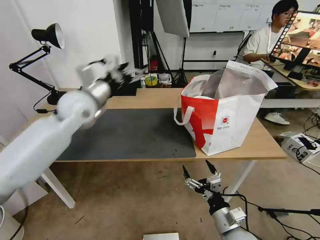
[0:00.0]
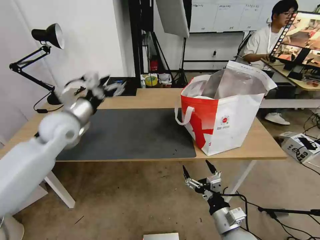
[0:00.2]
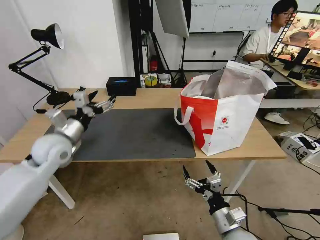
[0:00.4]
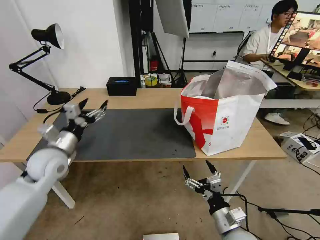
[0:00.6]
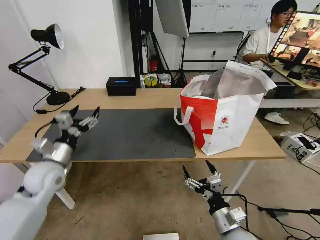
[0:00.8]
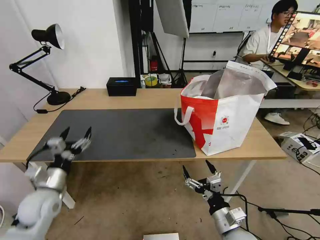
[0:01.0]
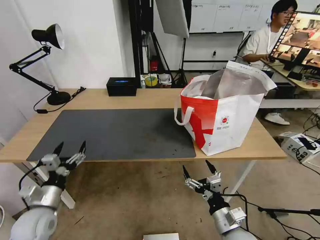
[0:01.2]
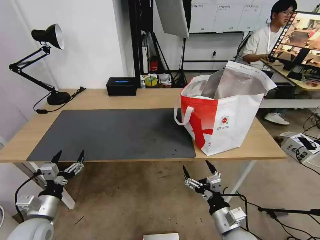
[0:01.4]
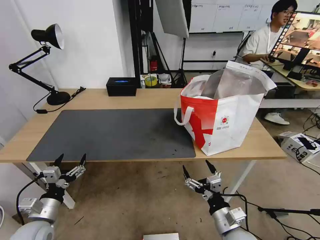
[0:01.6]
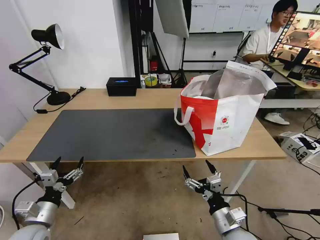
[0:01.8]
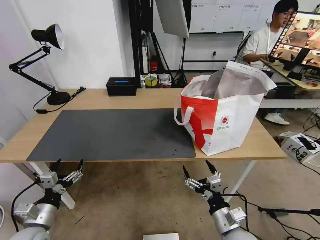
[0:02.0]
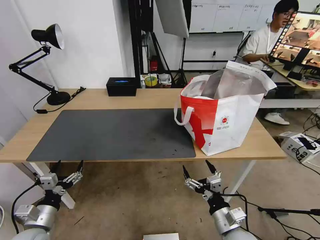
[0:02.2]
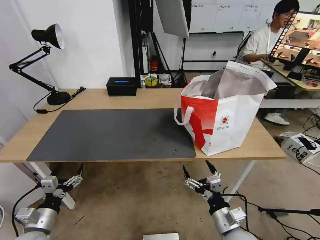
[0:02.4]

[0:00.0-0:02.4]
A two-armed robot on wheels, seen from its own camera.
Task of the whole recording: Pick up the trash from the table and place it into the takeout bag.
0:00.0 to 0:01.2: The left gripper travels downward, backward and to the left by some 40 cm.
0:01.2 to 0:02.4: The left gripper shifts by approximately 5 cm.

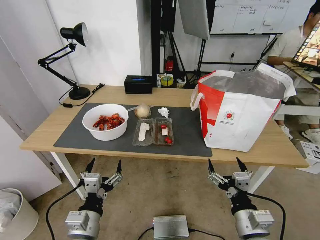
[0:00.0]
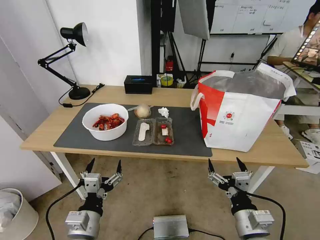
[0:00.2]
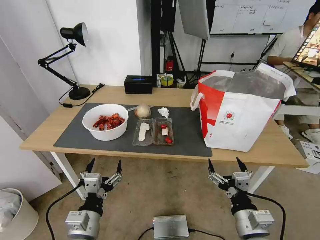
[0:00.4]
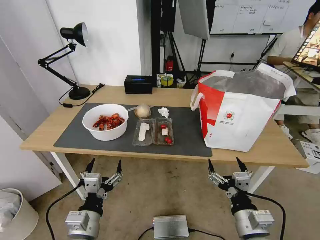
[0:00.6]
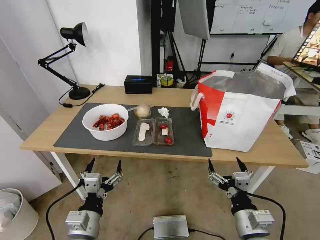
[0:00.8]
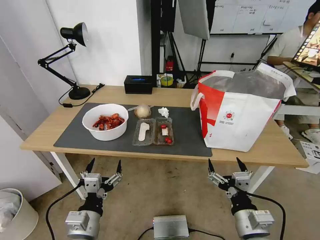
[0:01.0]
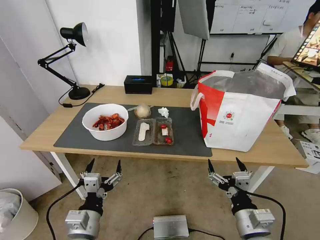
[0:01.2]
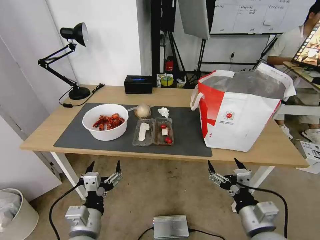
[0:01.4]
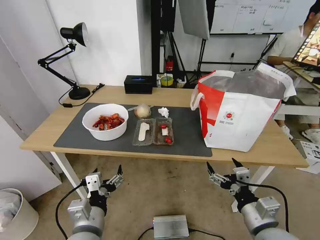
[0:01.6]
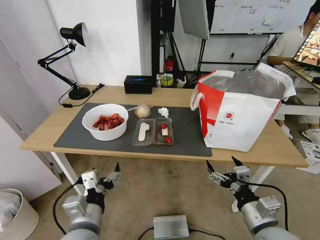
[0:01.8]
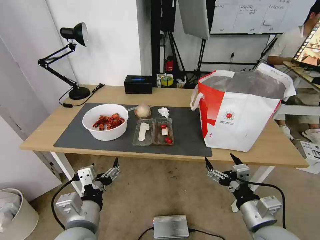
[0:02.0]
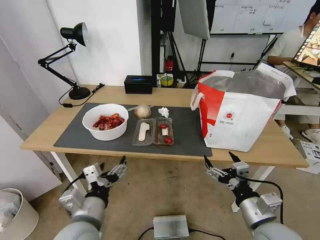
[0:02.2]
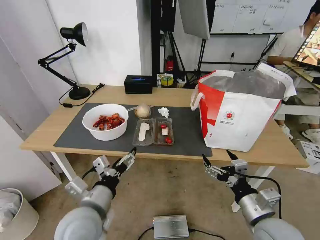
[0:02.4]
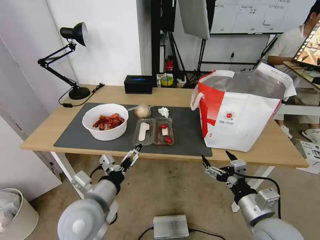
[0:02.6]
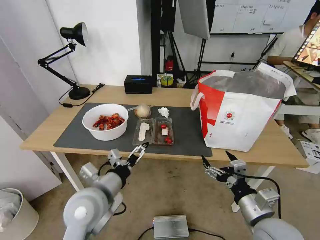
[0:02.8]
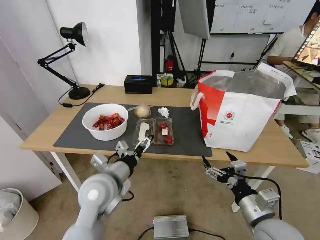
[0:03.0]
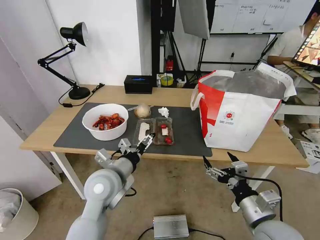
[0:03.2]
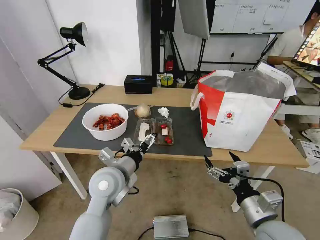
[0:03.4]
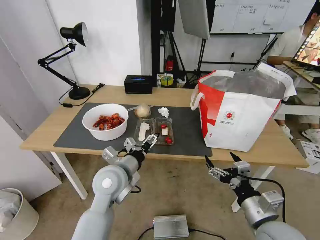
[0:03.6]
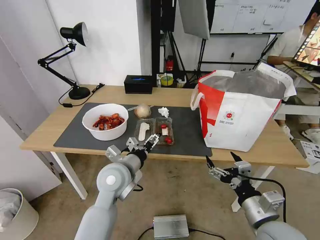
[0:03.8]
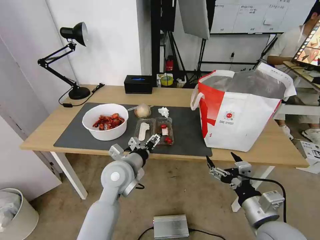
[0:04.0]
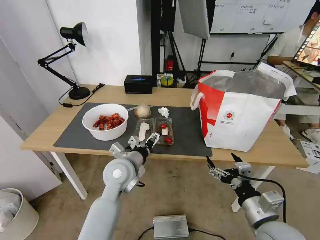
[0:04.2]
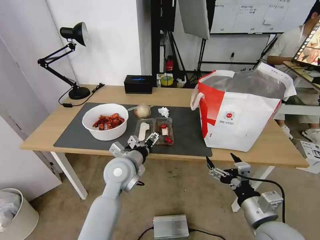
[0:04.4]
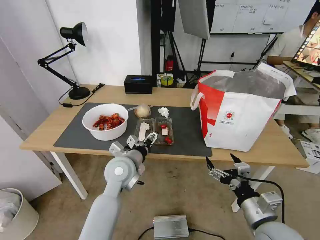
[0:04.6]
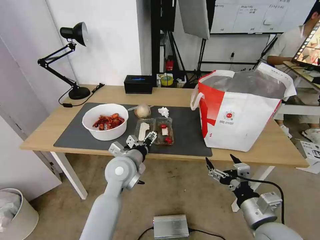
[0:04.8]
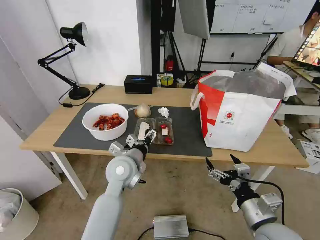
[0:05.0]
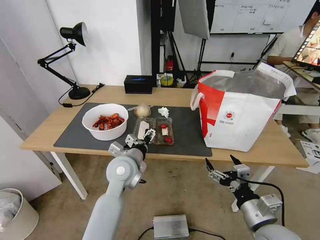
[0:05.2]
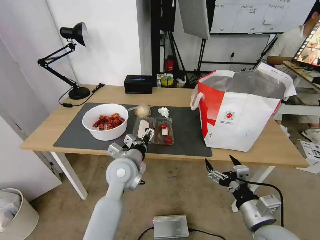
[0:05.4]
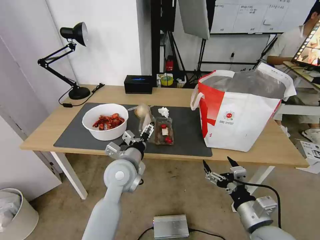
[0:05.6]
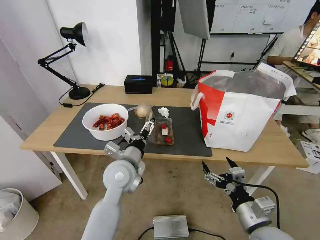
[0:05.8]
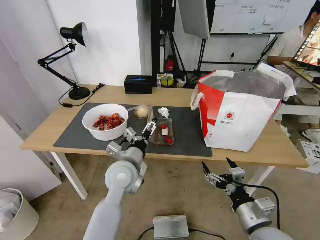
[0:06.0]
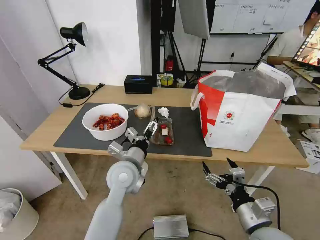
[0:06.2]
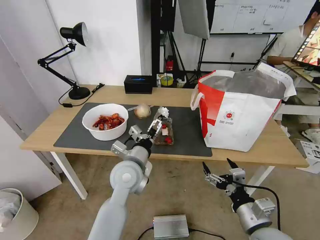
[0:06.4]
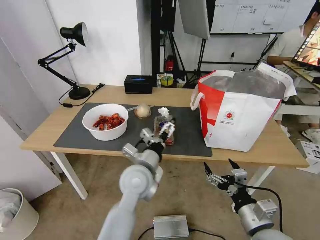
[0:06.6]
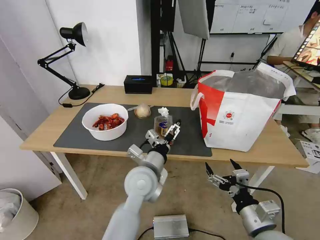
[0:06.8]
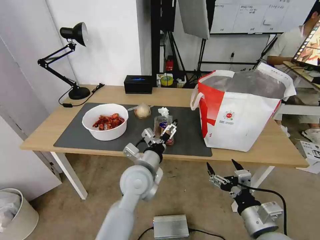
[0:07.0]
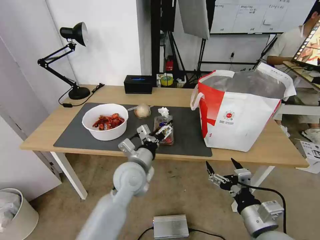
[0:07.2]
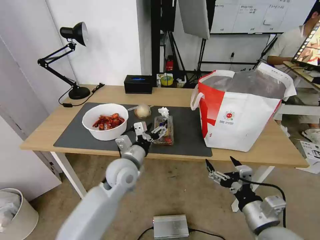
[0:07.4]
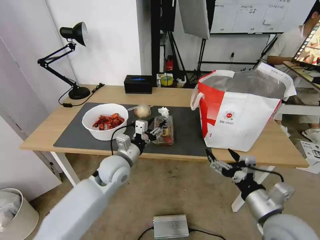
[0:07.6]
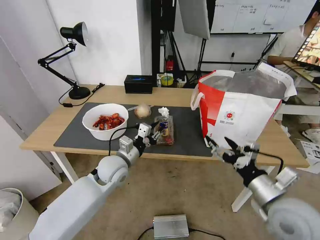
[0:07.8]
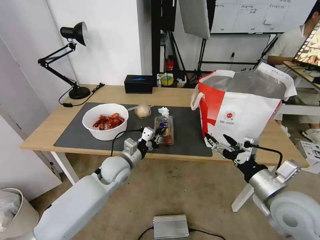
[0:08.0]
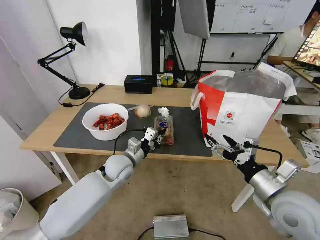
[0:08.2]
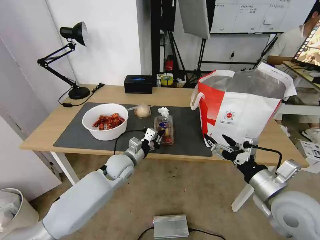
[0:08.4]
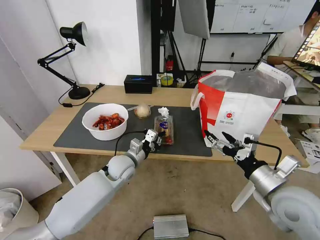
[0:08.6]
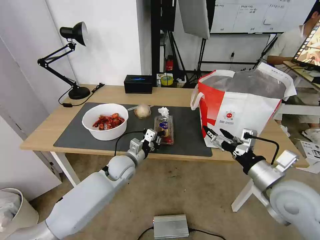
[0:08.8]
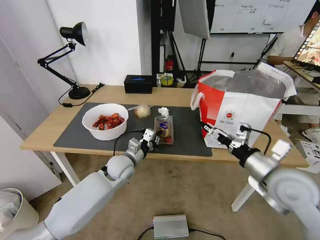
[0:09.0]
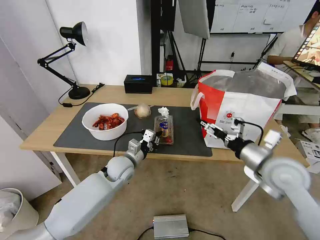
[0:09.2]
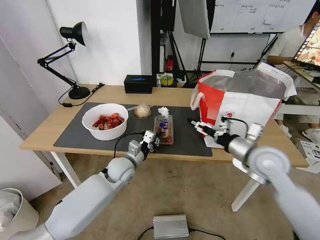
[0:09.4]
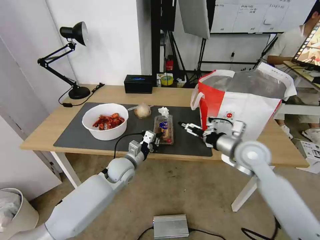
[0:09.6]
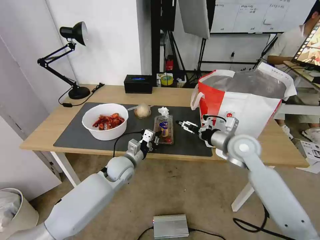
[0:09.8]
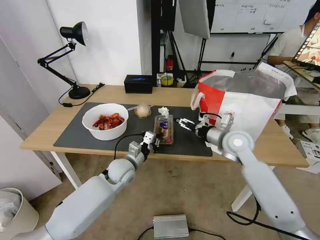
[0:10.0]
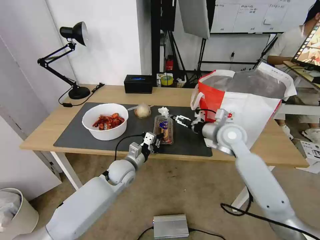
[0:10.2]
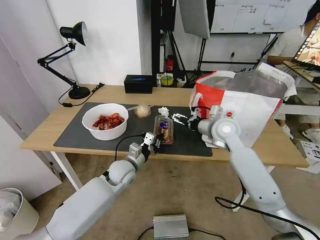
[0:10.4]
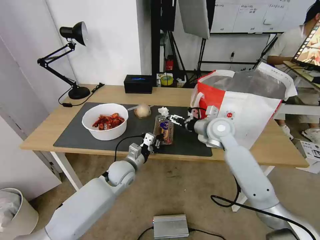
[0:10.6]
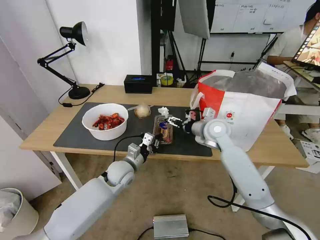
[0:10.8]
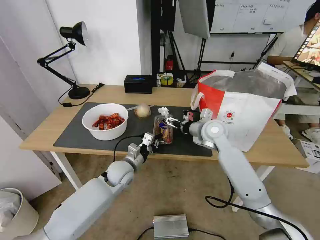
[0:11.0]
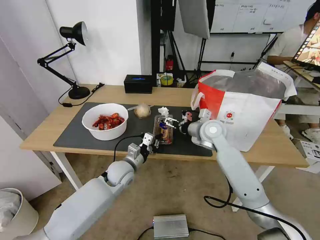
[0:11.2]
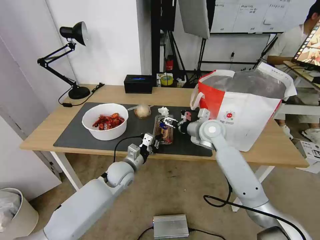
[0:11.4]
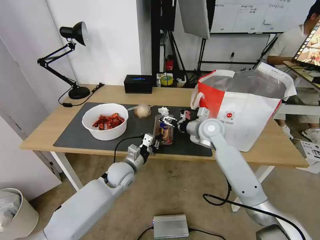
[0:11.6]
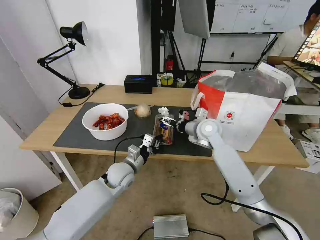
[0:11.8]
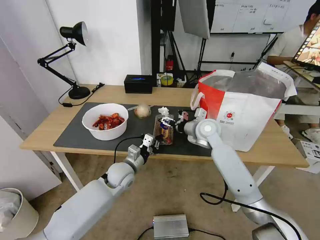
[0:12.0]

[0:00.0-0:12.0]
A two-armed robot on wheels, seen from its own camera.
Task of the whole recording: Pick up the trash from the table and place it into the takeout bag.
0:01.6 to 0:03.0: The left gripper shifts about 15 cm forward and upward.
0:03.0 to 0:04.4: The left gripper travels forward by roughly 5 cm.
0:04.4 to 0:06.0: The grippers make only small movements.
0:06.0 to 0:07.6: The right gripper moves roughly 5 cm. Meanwhile the left gripper moves approximately 5 cm to the right and comes back, and closes.
0:07.6 to 0:09.0: The right gripper travels forward and upward by approximately 10 cm. Meanwhile the left gripper heads downward, covering some 5 cm, and closes.
0:09.0 to 0:10.4: The right gripper heads forward and to the left, covering about 20 cm.
0:10.4 to 0:12.0: The right gripper changes place by about 5 cm.

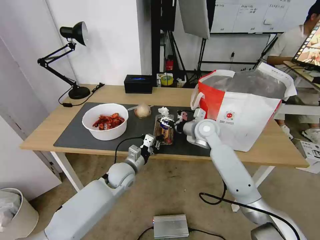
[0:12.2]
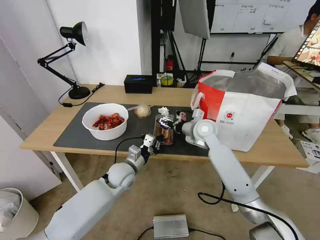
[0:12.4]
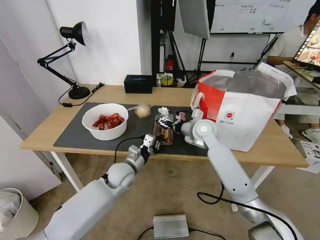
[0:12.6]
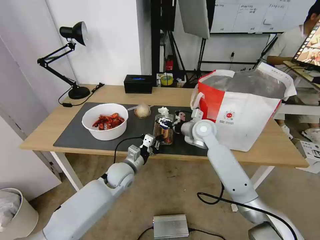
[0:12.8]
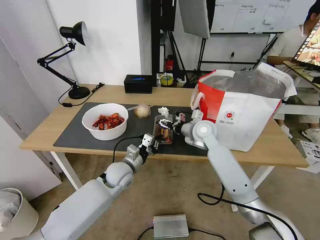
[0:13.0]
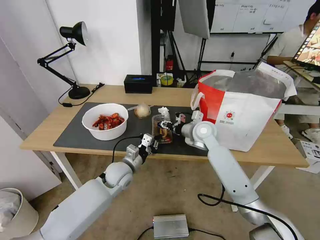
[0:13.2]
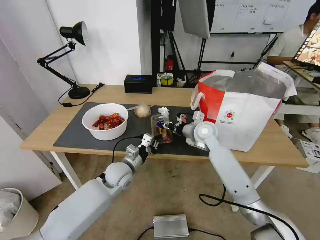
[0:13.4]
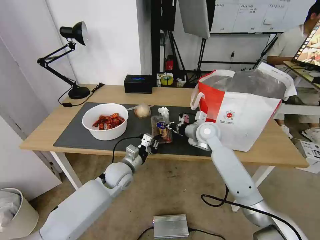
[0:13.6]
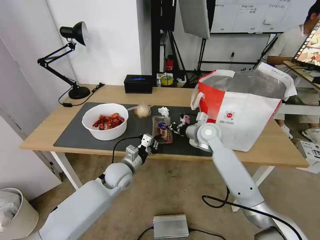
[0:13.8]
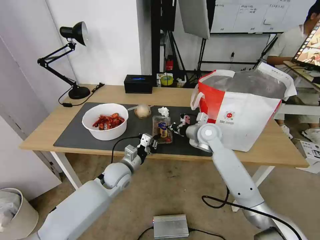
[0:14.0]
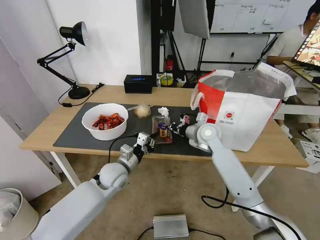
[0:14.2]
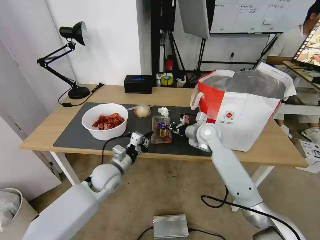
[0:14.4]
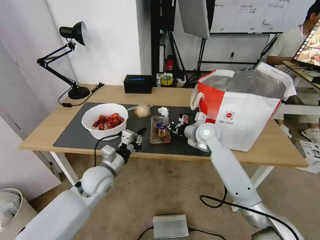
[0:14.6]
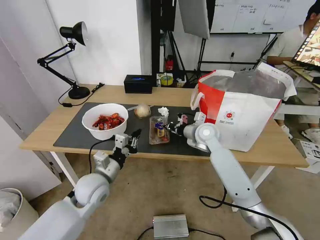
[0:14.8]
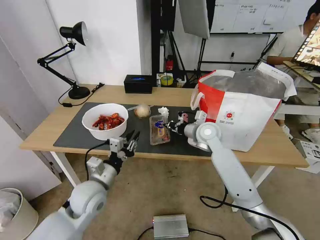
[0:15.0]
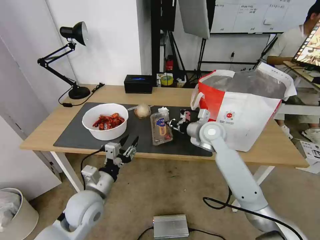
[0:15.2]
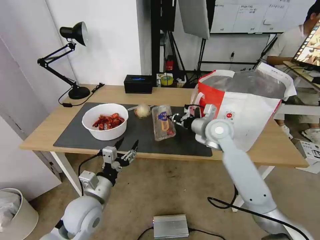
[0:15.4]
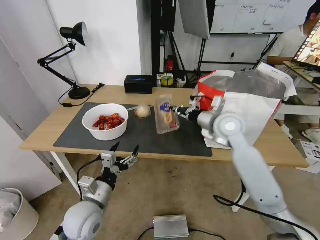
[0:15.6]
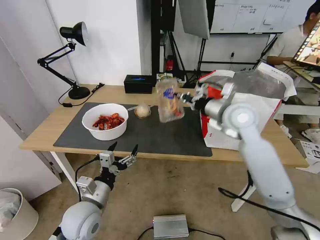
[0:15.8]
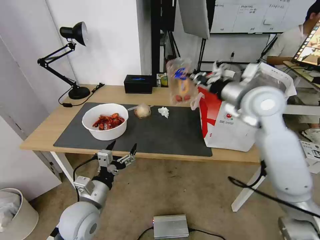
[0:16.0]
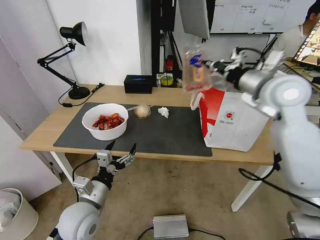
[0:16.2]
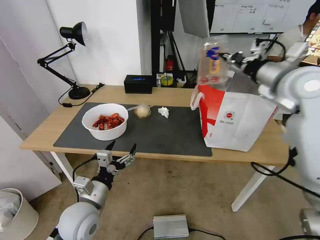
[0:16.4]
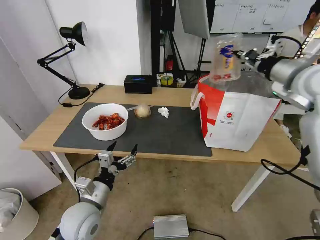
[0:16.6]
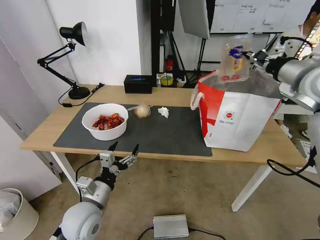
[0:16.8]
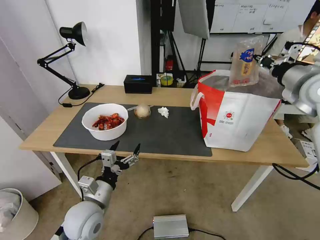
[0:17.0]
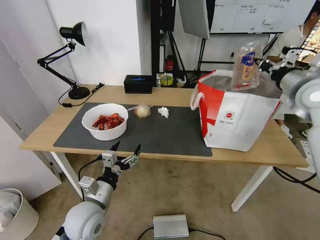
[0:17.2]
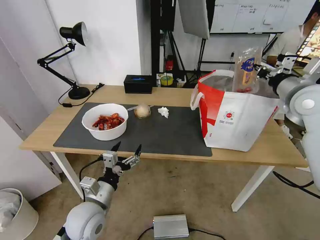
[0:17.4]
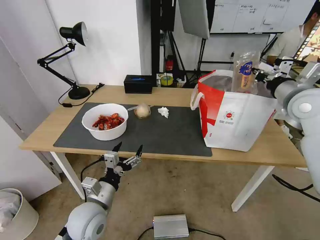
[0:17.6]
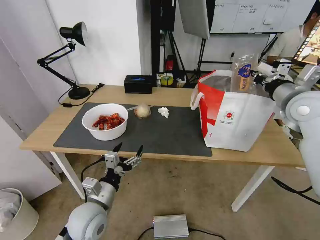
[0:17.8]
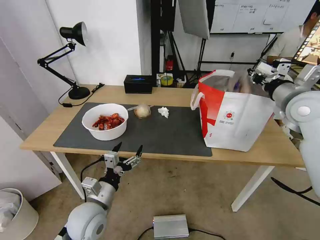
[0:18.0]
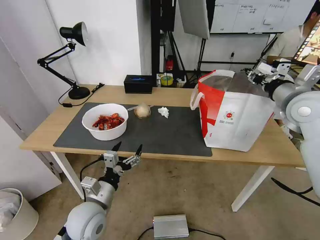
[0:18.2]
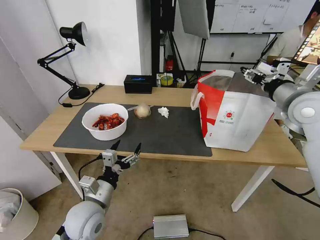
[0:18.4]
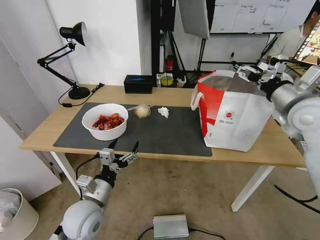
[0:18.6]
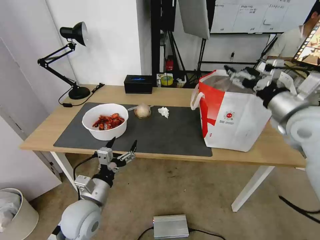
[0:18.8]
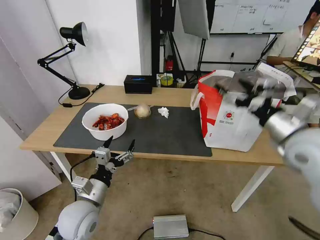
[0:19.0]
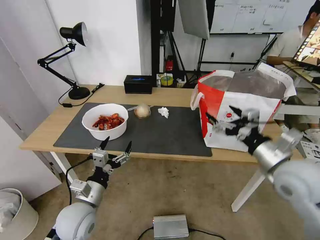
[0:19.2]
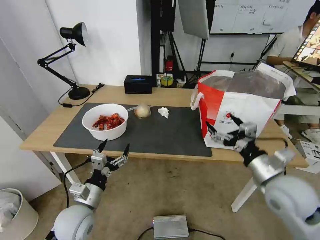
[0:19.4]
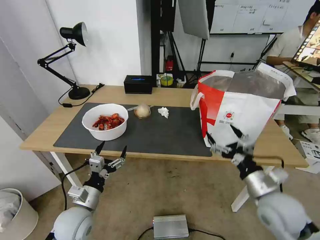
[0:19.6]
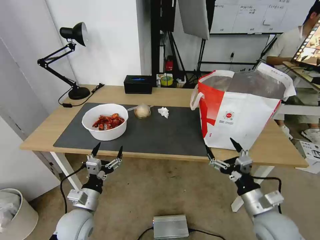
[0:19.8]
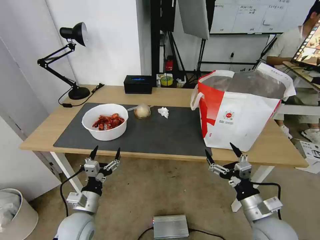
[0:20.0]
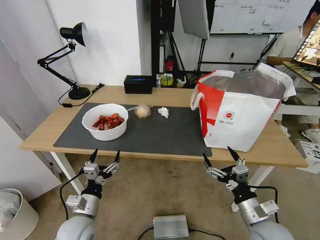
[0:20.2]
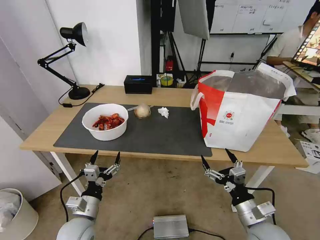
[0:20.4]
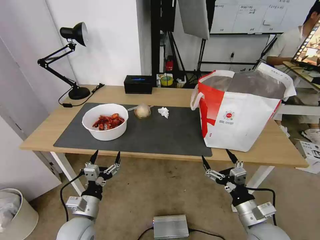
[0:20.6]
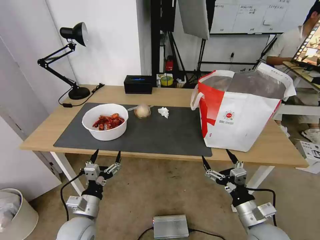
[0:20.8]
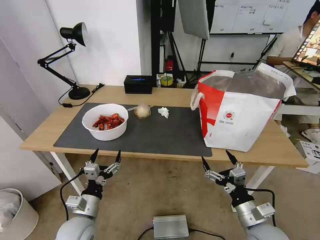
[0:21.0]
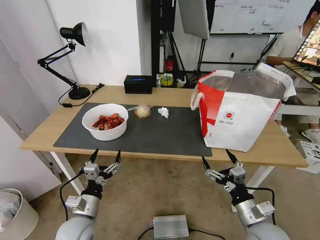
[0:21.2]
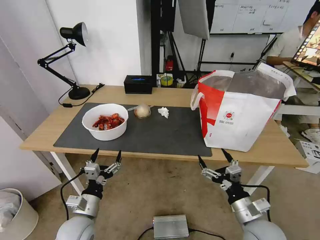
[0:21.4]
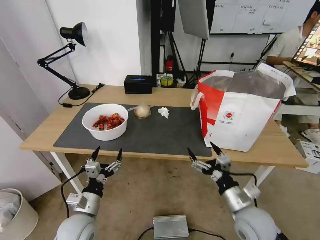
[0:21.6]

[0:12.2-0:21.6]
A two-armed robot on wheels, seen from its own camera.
Task of the whole recording: Pick up the trash from the table and place it into the takeout bag.
0:12.2 to 0:13.8: The right gripper closes up.
0:13.8 to 0:15.4: The left gripper shifts approximately 15 cm backward and to the left, and opens. The right gripper ends up approximately 5 cm from where it was.
0:15.4 to 0:17.0: The right gripper moves to the right and upward, some 25 cm.
0:17.0 to 0:18.4: The right gripper shifts by some 5 cm, and opens its fingers.
0:18.4 to 0:20.0: The left gripper is displaced downward by about 5 cm. The right gripper travels downward and backward by approximately 35 cm.
0:20.0 to 0:21.6: The grippers stay close to where they were, moving slightly.
